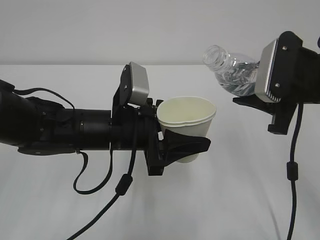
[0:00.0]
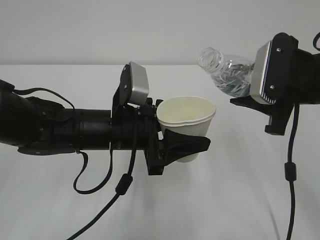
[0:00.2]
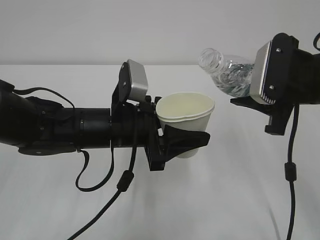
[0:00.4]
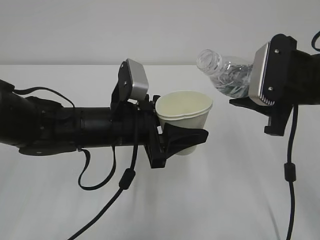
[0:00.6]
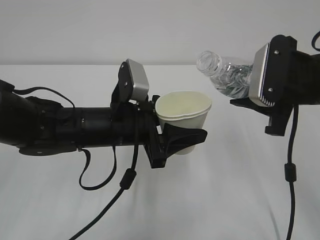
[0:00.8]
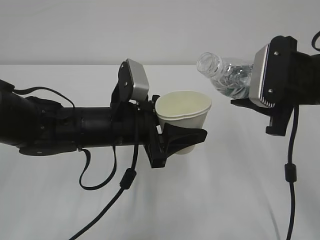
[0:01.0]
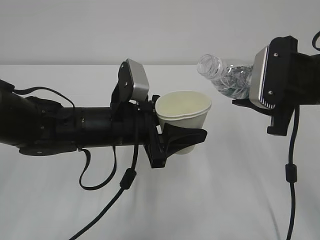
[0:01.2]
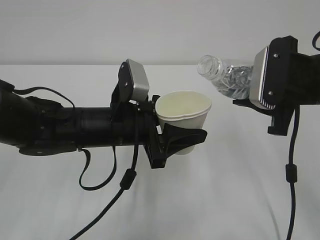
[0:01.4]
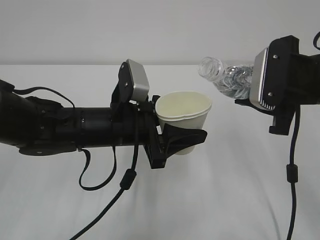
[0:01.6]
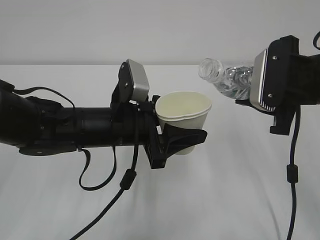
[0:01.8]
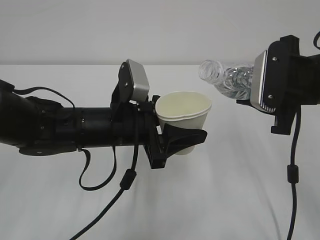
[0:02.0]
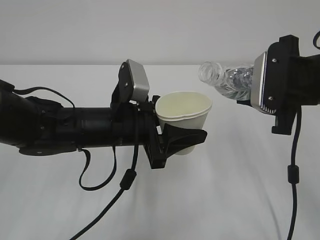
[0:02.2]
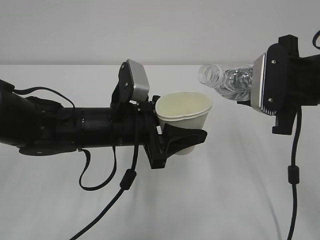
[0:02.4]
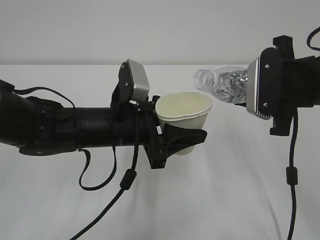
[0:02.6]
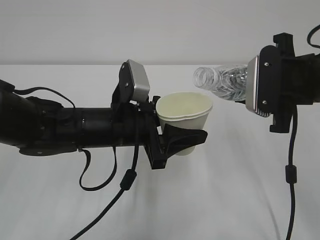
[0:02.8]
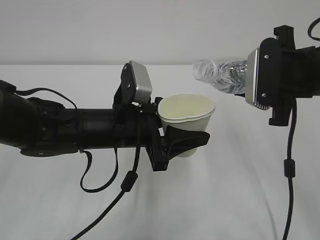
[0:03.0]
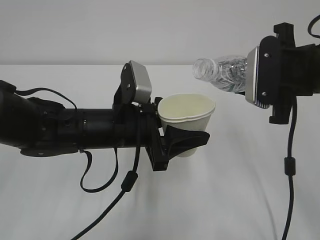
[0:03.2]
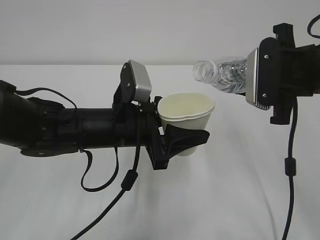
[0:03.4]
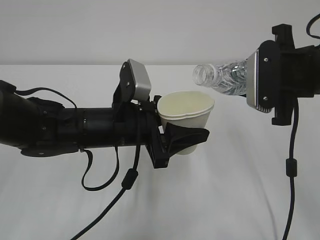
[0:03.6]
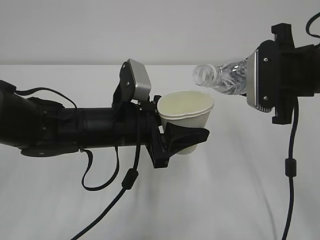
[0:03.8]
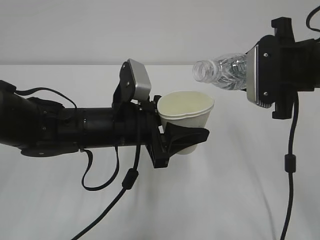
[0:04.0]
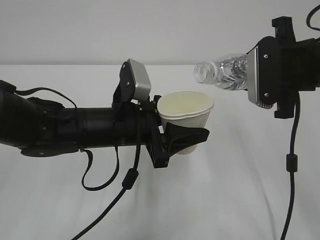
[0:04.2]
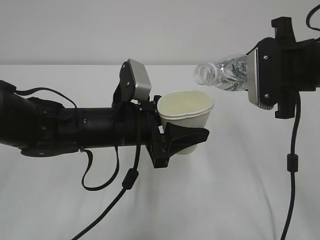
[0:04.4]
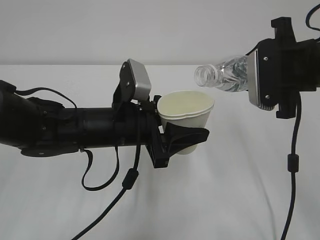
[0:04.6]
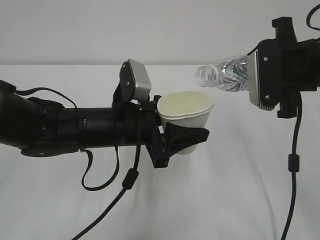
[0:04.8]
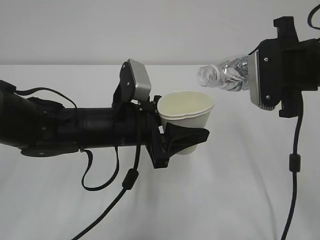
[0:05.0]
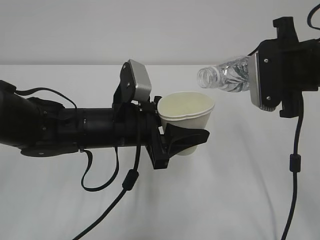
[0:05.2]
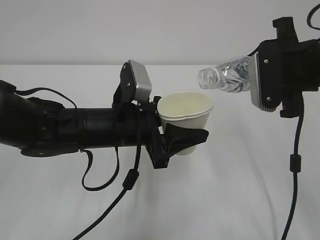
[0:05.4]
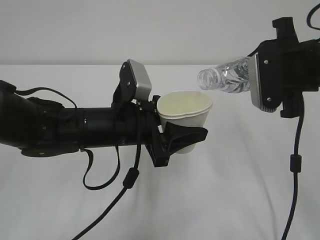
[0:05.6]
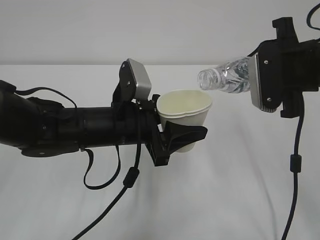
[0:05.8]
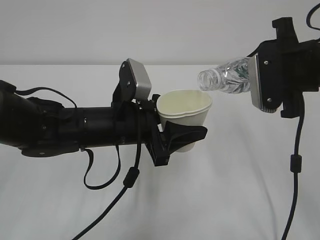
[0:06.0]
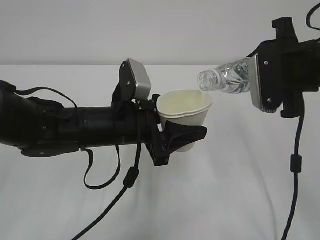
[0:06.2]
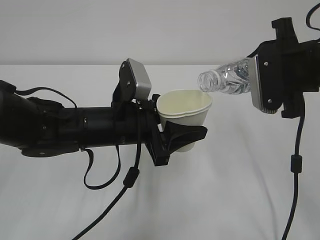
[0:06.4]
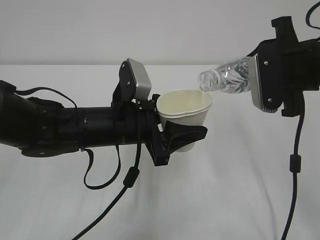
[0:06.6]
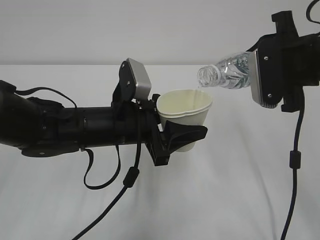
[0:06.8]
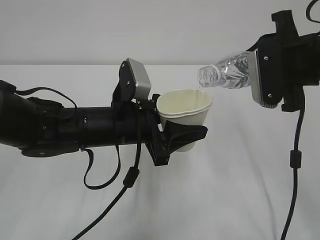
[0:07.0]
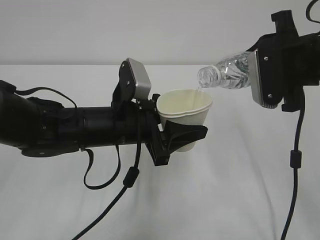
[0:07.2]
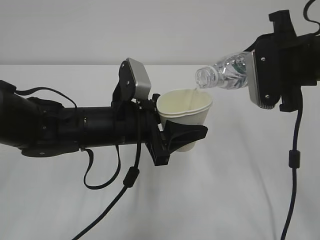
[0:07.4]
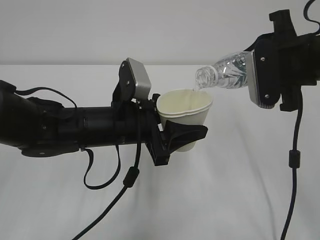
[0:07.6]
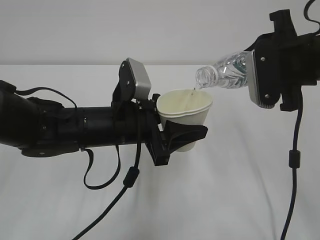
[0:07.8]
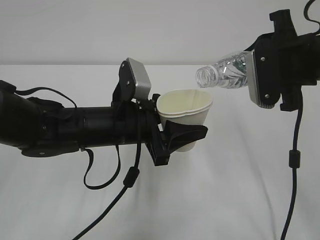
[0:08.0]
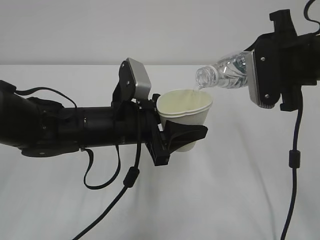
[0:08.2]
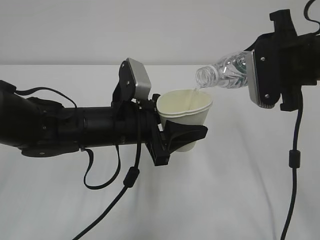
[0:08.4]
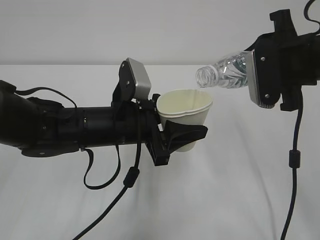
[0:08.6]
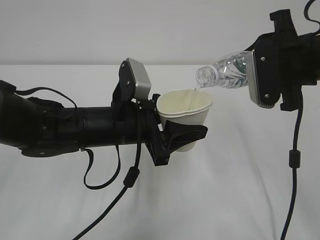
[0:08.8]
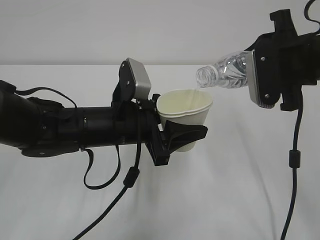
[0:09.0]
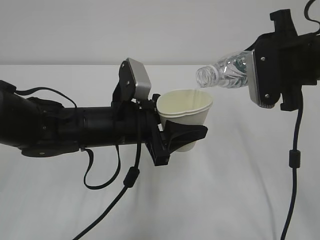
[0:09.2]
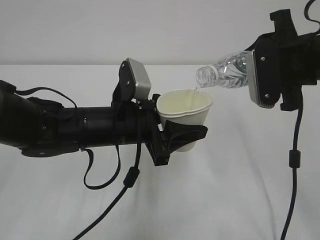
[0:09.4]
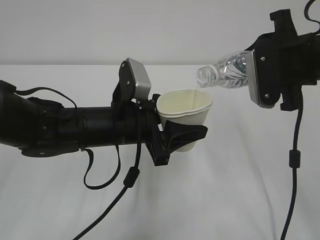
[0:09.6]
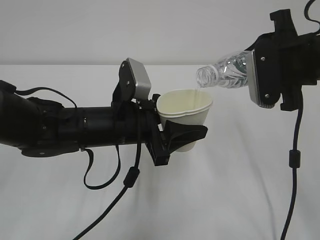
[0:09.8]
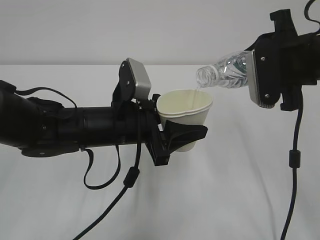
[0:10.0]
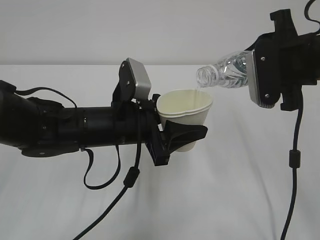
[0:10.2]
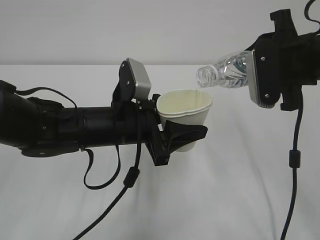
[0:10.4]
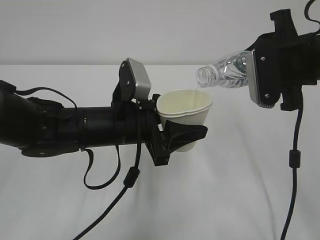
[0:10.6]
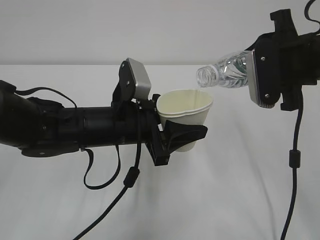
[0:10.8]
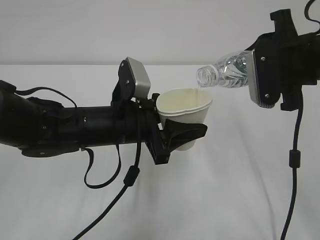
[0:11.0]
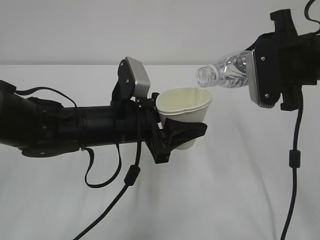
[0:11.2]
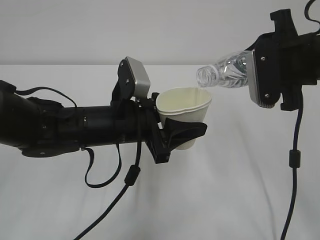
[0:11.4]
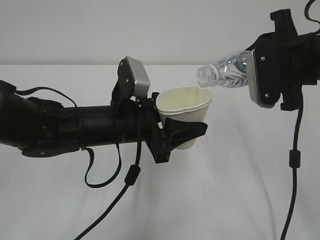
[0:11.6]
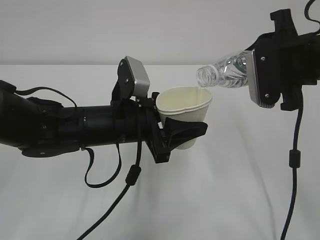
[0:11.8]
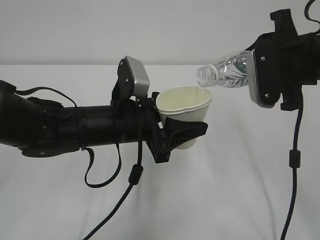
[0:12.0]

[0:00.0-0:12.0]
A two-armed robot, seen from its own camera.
0:00.0 to 0:03.0: The grippers stay close to where they were, moving slightly.
0:03.0 to 0:04.4: The grippers stay close to where they were, moving slightly.
0:04.4 to 0:06.0: Both grippers stay put.
0:06.0 to 0:12.0: Neither gripper changes place.

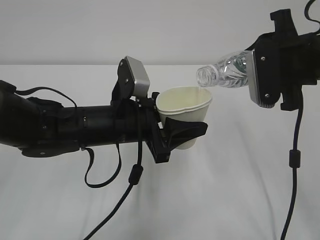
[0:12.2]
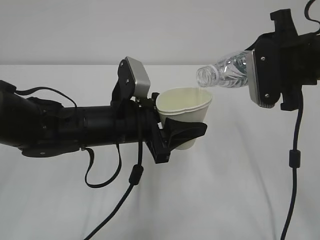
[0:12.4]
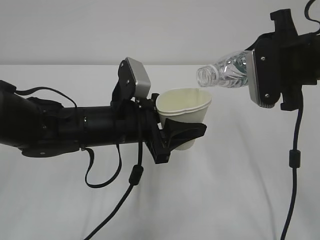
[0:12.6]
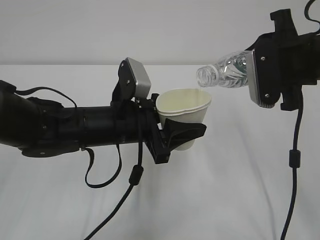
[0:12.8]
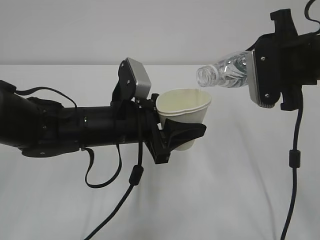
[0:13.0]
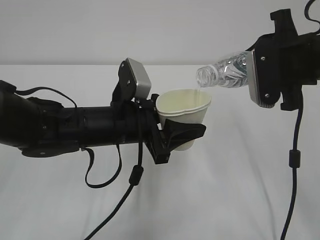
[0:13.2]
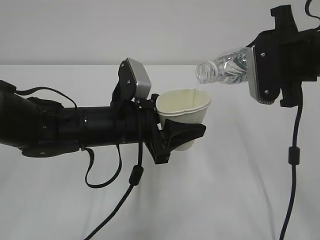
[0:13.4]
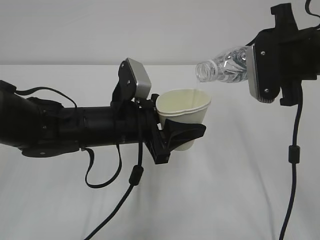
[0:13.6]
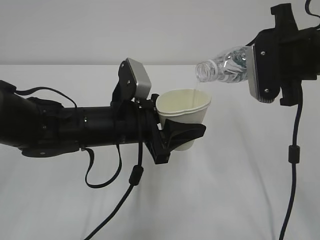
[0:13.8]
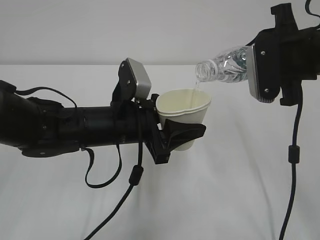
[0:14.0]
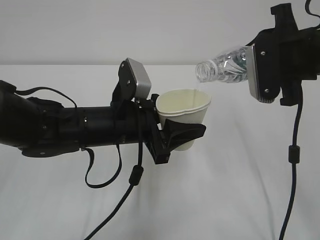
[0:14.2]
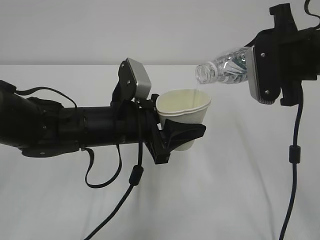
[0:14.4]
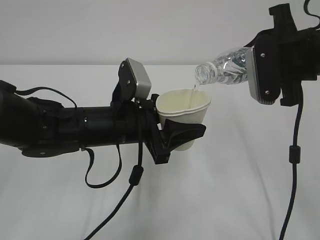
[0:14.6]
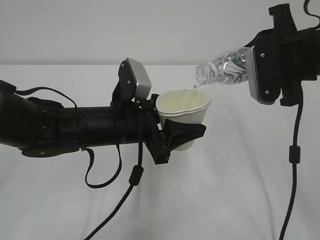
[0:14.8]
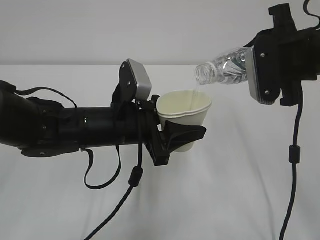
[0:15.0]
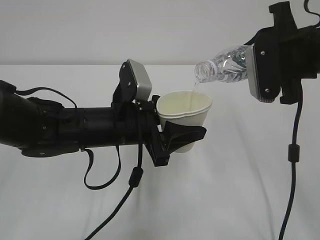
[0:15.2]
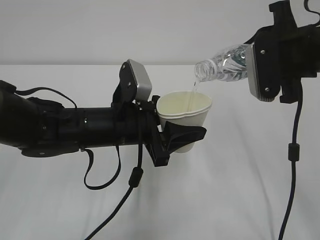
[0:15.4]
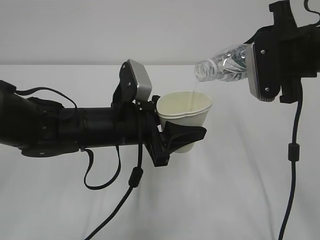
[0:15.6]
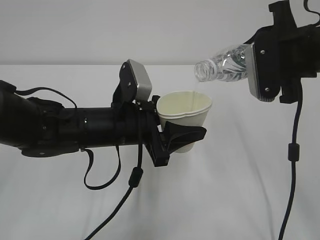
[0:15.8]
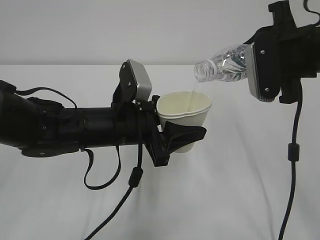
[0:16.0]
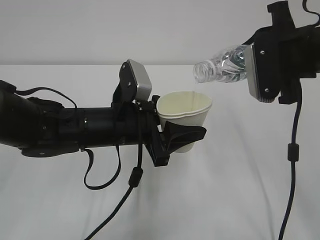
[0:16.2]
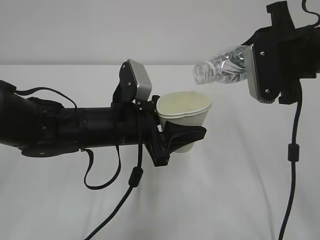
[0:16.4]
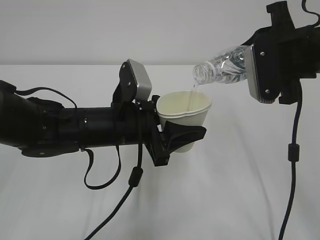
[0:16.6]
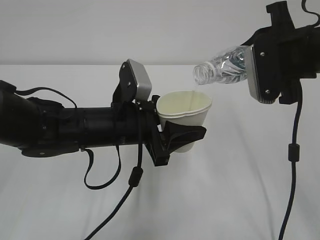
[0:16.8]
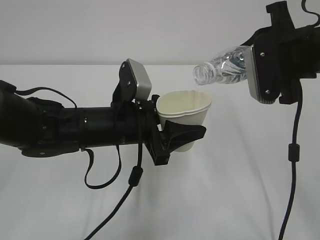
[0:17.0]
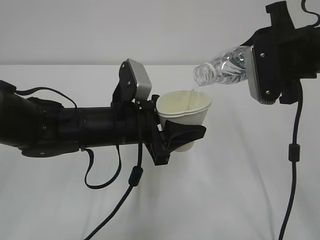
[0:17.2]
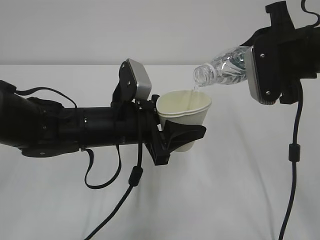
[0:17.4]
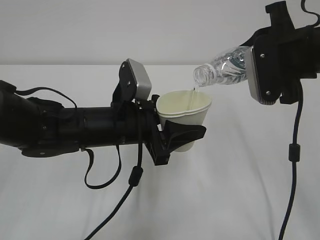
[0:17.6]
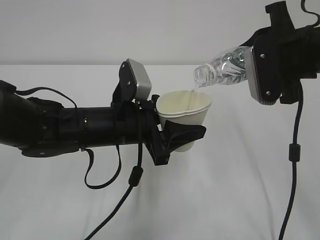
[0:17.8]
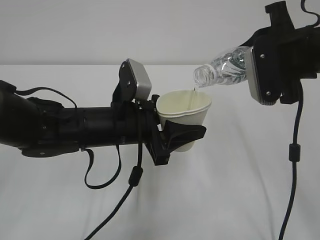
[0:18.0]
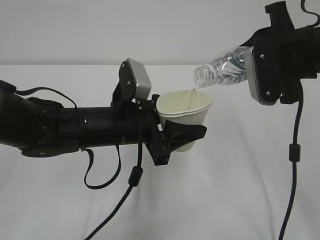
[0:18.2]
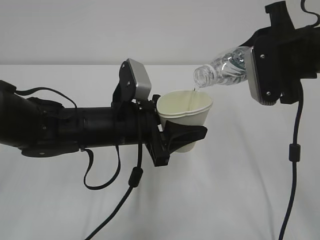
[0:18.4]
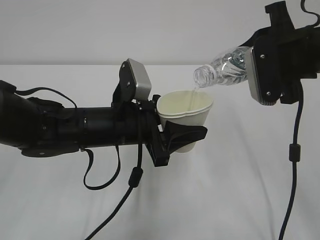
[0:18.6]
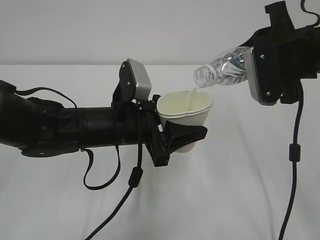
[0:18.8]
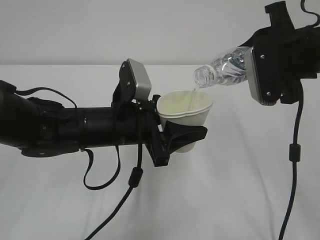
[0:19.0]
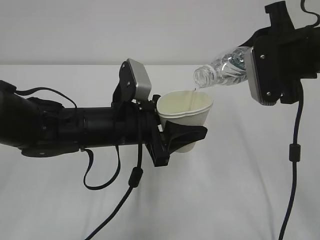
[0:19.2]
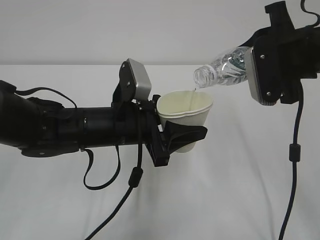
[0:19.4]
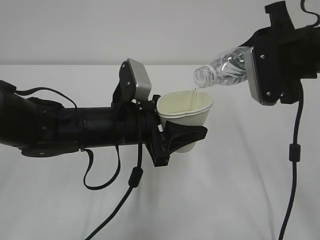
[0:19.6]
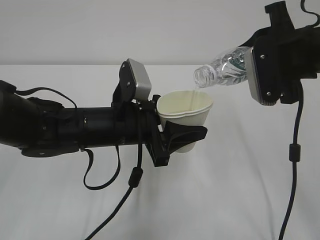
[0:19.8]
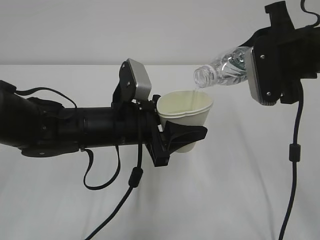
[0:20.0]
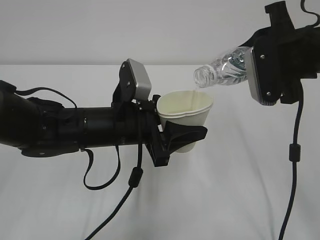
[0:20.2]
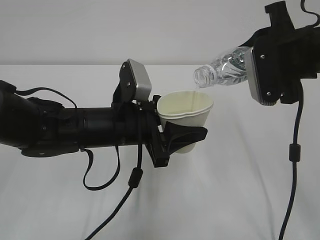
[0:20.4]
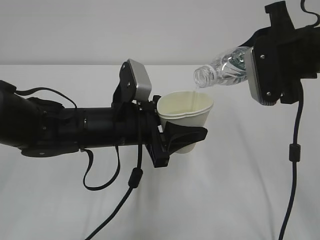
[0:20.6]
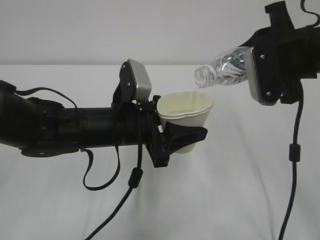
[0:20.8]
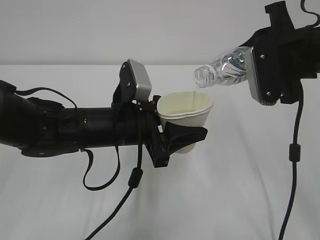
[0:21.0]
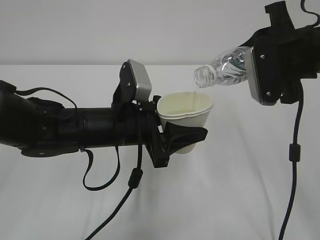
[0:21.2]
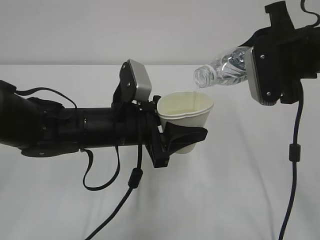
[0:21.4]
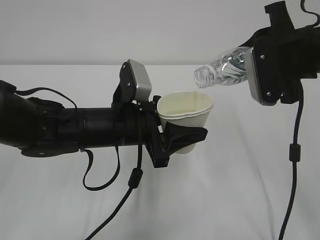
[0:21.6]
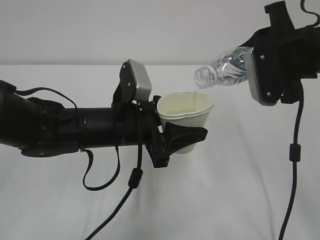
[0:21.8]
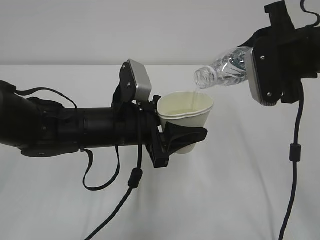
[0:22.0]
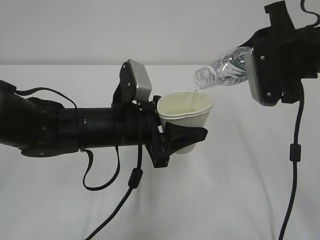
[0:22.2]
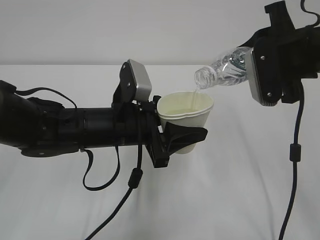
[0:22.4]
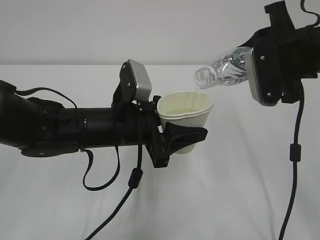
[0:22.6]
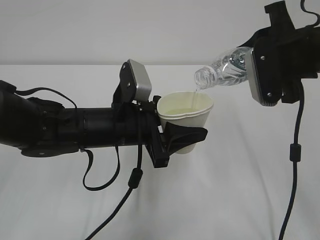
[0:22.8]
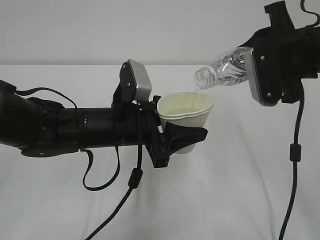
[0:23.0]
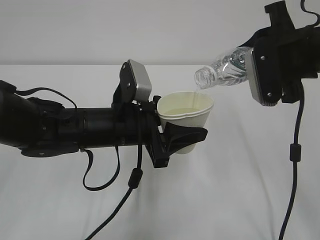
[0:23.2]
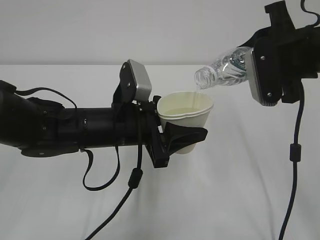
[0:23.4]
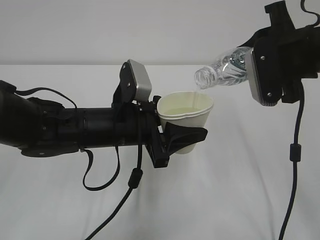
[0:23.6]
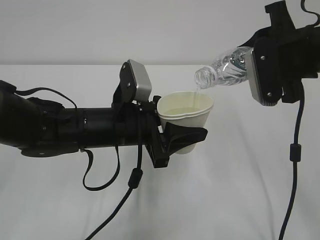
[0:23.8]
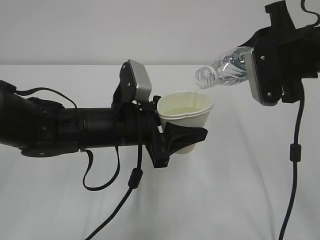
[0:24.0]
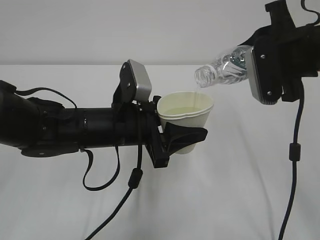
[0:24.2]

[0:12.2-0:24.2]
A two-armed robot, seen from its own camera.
0:12.2 to 0:16.6: Both grippers stay about where they are.
0:16.6 to 0:24.2: Neither gripper changes place.
